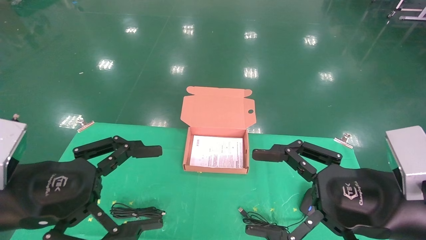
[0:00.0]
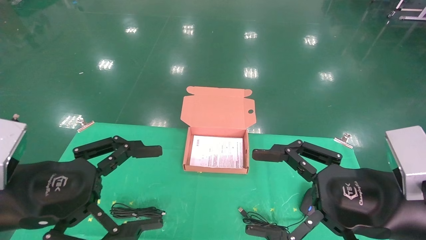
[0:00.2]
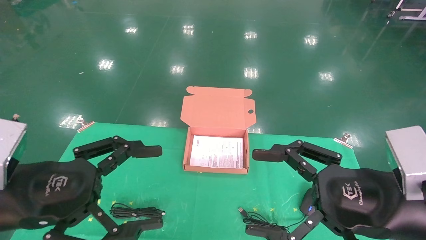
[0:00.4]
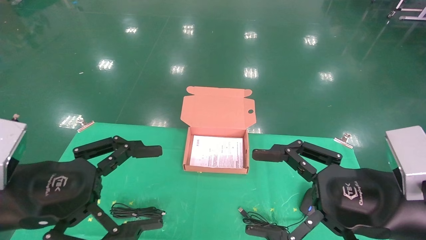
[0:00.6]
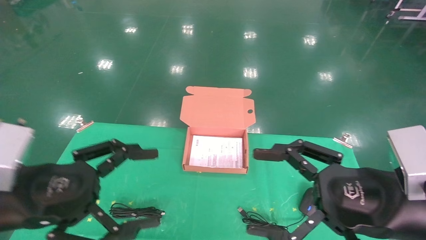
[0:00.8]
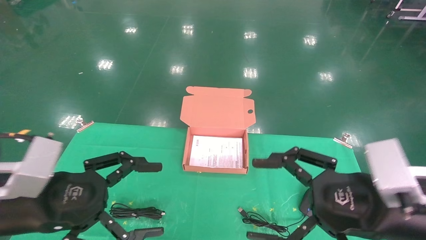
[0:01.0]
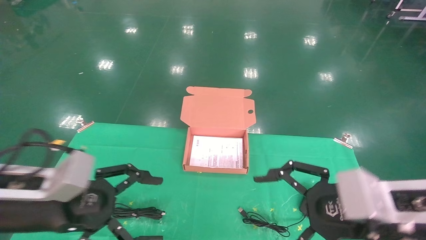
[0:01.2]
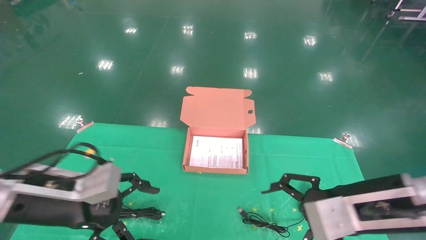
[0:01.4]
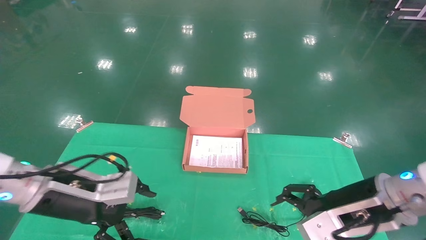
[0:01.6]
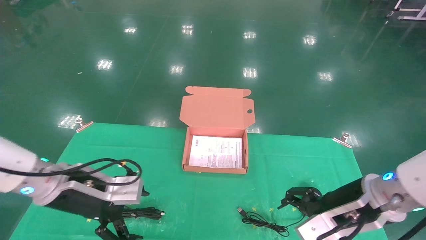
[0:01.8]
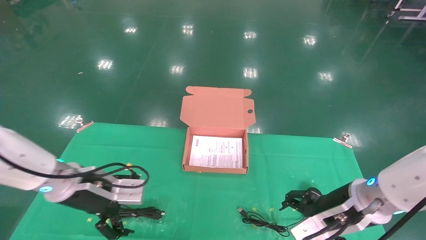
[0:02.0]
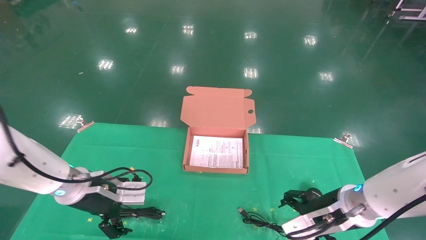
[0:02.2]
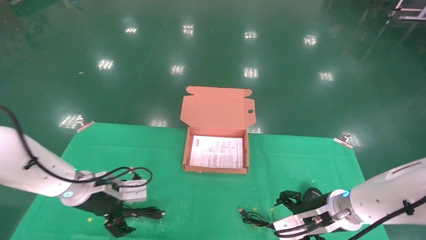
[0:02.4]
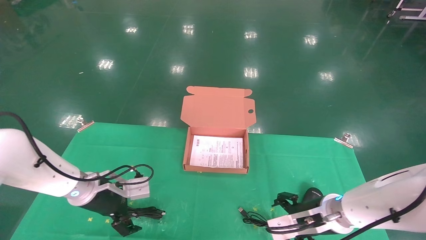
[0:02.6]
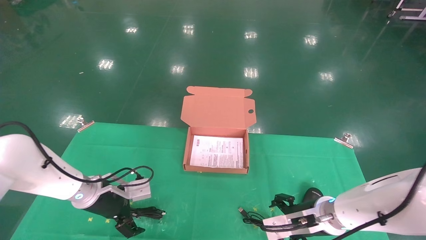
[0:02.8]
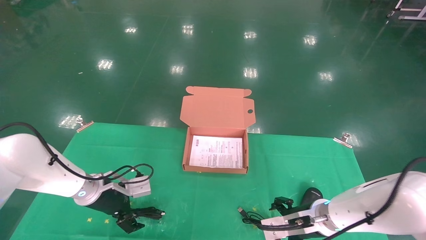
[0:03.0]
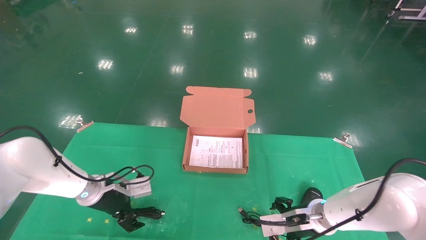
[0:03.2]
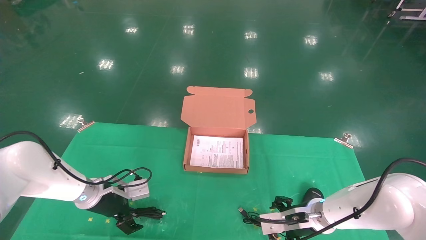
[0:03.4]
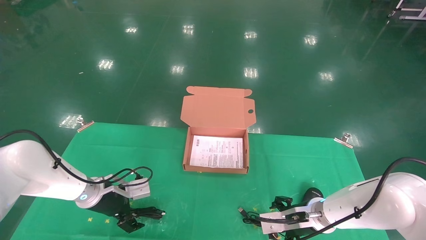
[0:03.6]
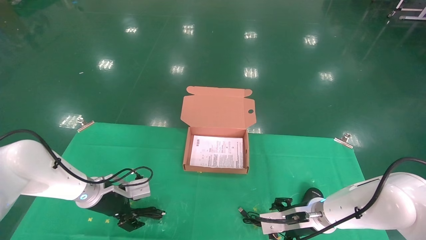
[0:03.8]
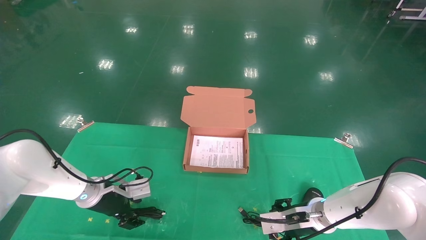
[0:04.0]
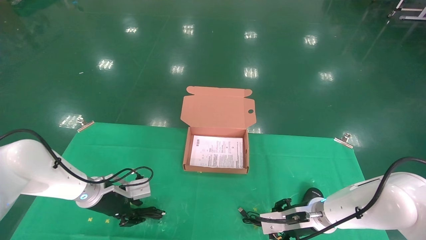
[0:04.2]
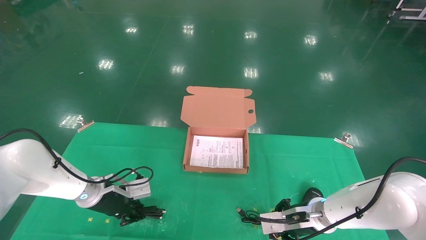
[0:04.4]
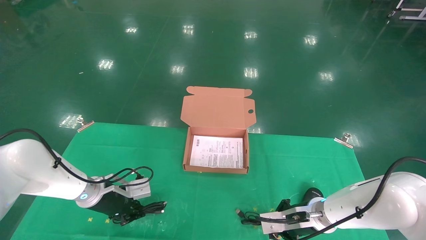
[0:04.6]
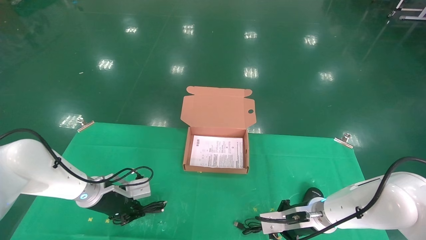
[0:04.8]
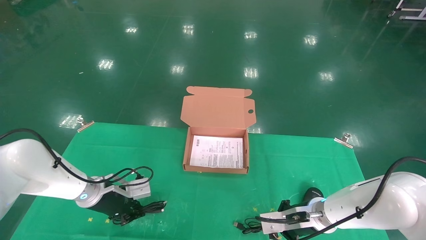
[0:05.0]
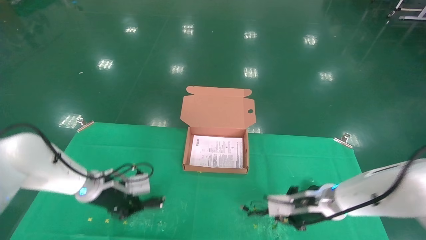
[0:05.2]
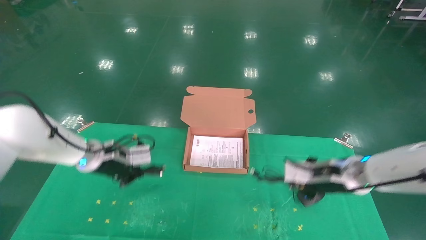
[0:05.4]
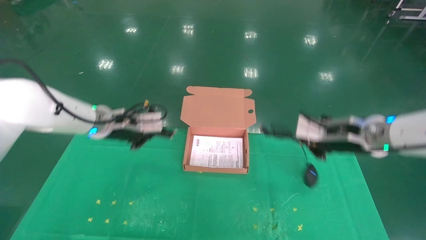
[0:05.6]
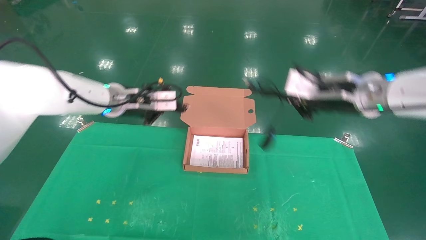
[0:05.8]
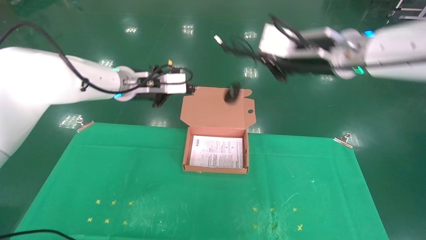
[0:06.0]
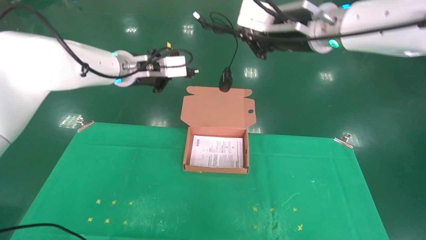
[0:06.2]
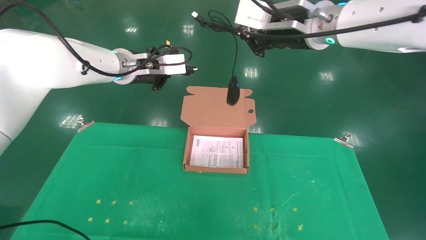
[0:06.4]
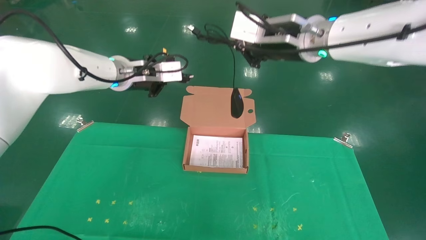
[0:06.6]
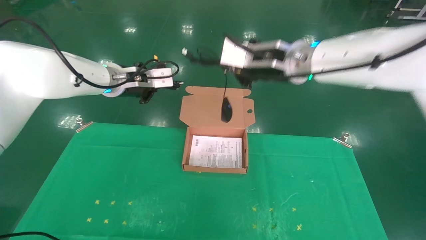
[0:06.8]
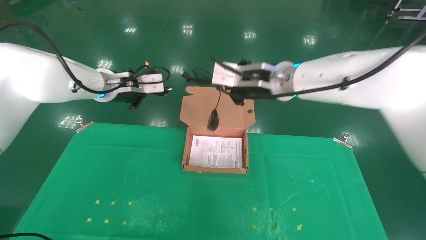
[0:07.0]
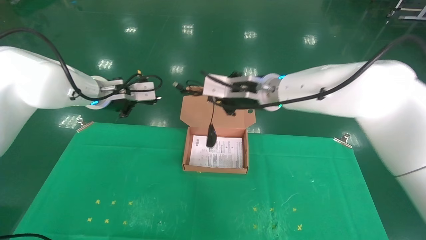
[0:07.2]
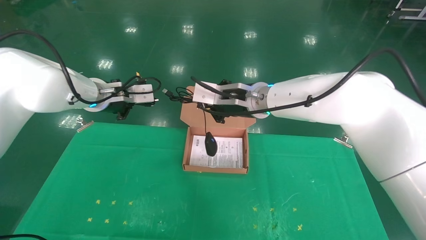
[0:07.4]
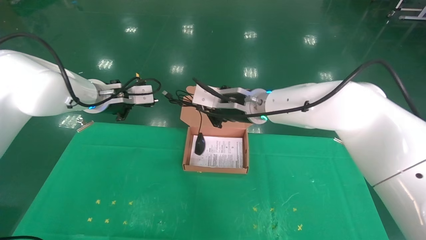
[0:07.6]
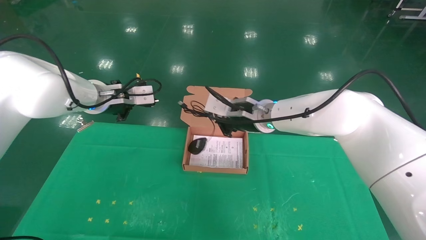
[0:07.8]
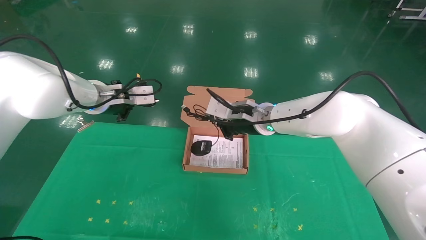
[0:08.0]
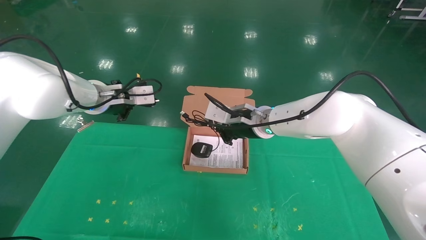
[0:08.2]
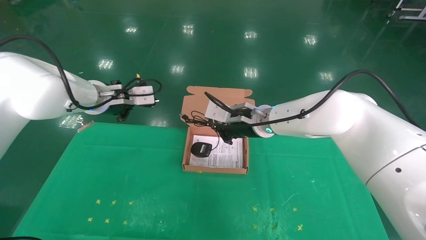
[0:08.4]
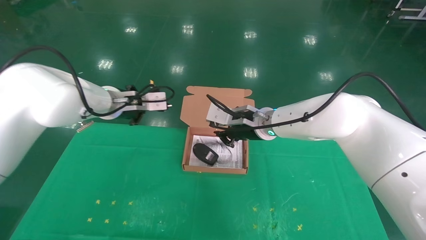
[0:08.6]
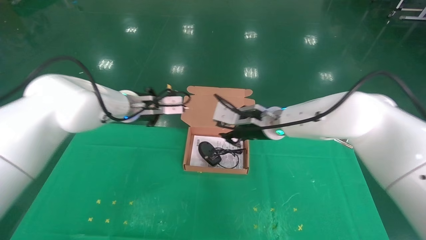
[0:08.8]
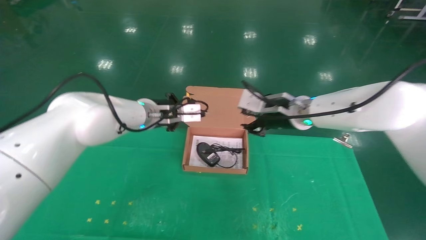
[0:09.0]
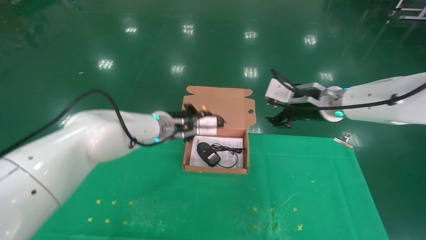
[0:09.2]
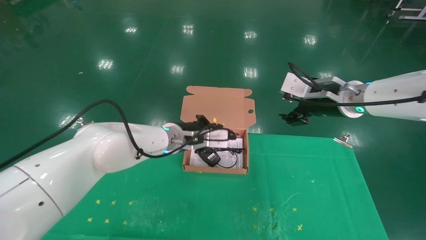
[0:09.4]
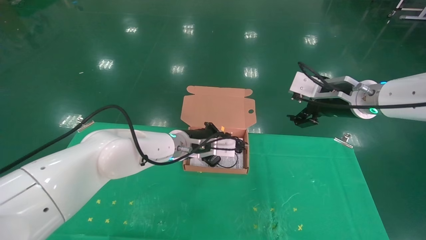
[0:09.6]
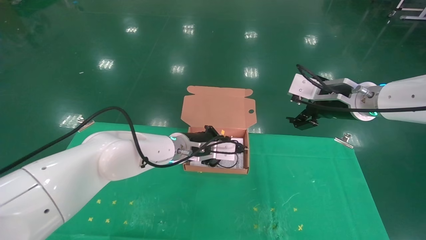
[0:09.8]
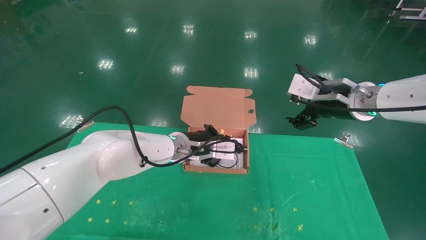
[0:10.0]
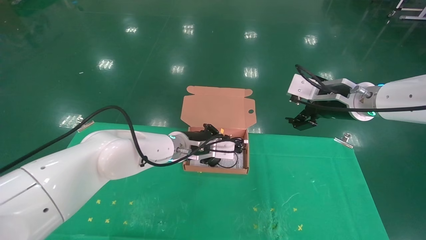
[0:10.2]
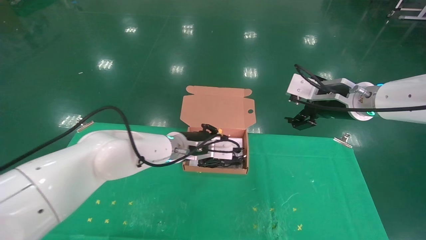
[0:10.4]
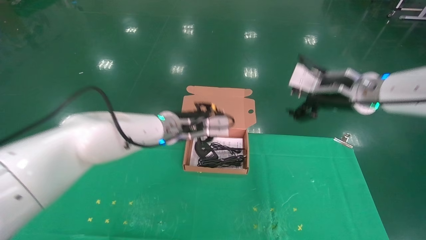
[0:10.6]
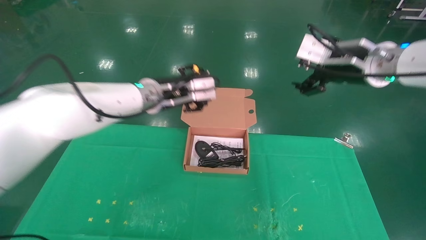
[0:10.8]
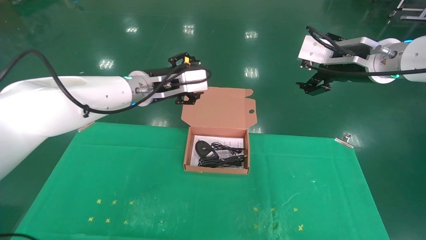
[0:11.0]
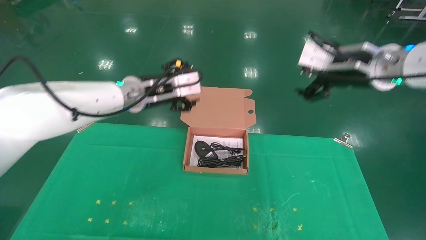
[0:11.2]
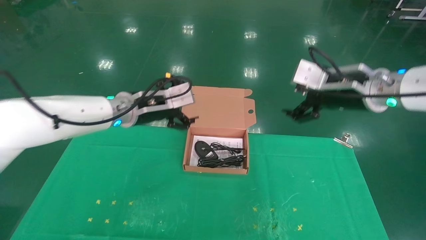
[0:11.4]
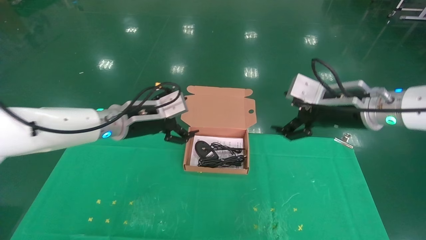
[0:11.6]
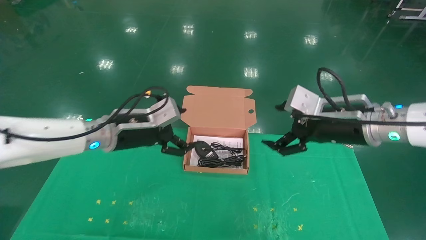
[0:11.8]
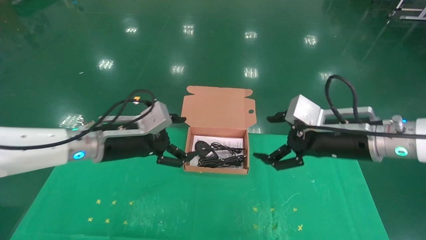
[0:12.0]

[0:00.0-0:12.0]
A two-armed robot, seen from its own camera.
Task of the whole recording: grasp data cable left put into box grasp mouse right put into box.
Step, 0:00.8 to 0:05.4: Grab and pick up both the mouse and power cord from the accessory packaging area at the same time.
Step, 0:05.6 to 0:10.8: Place the mouse and power cord into the box.
0:00.0 to 0:01.6: The right gripper heads forward, covering about 10 cm; the left gripper shifts about 10 cm forward and downward.
0:01.6 to 0:03.0: The right gripper shifts some 15 cm downward and forward. Meanwhile the left gripper goes about 15 cm forward and downward.
0:03.0 to 0:04.4: The left gripper closes, while the right gripper closes up.
0:04.4 to 0:06.0: The two grippers go roughly 30 cm upward. The right gripper closes its fingers.
0:06.0 to 0:07.6: The left gripper travels to the left by some 5 cm. The right gripper shifts about 15 cm to the left, downward and forward.
0:07.6 to 0:09.0: The left gripper shifts about 10 cm to the right and downward. Meanwhile the right gripper heads to the right, covering some 10 cm.
0:09.0 to 0:10.4: The grippers both shift to the right by some 5 cm. The right gripper opens up.
0:10.4 to 0:12.0: The left gripper moves to the left and backward, approximately 15 cm, and opens; the right gripper moves backward and downward, about 10 cm.

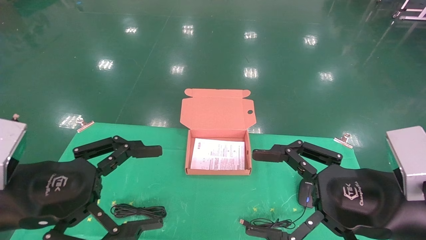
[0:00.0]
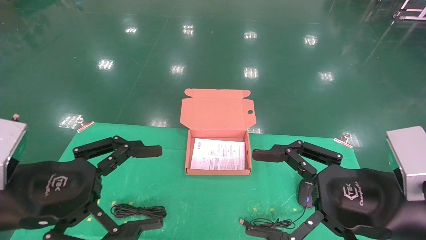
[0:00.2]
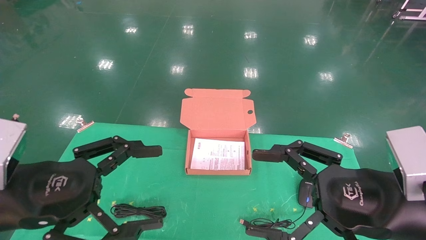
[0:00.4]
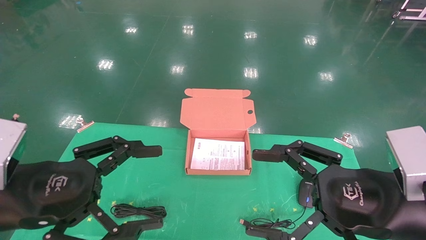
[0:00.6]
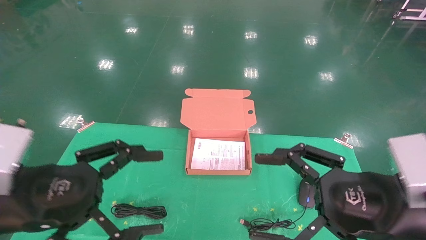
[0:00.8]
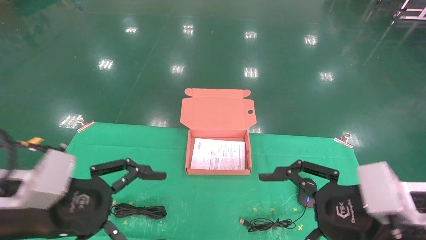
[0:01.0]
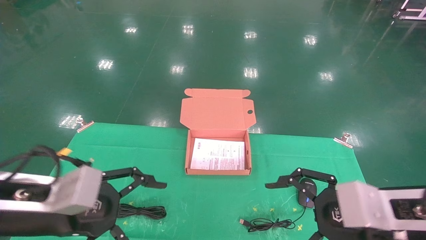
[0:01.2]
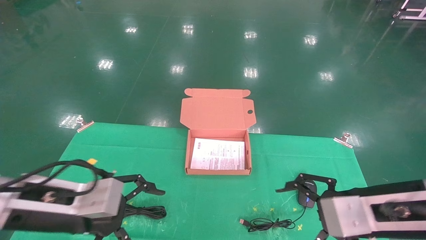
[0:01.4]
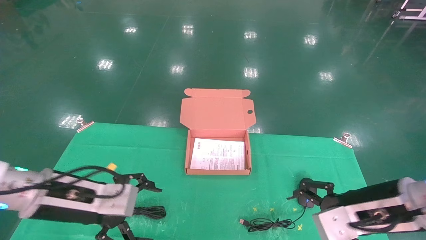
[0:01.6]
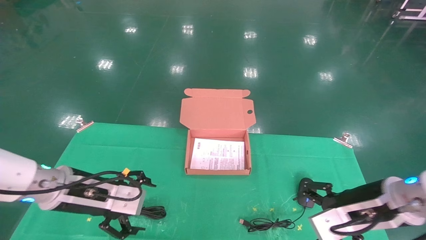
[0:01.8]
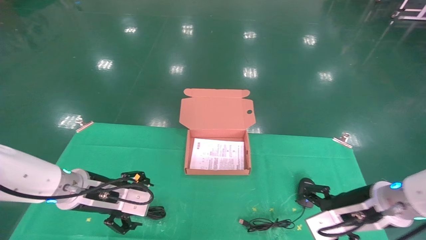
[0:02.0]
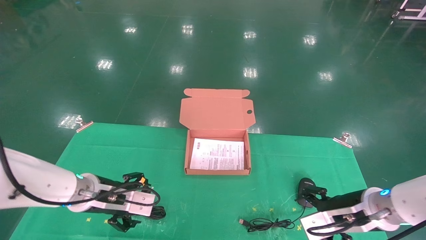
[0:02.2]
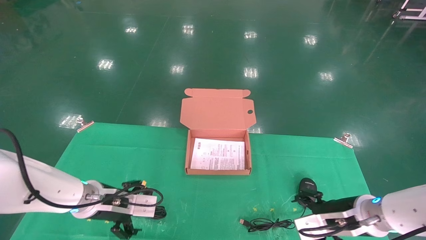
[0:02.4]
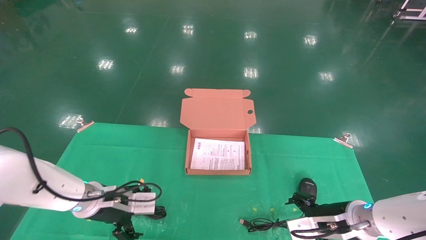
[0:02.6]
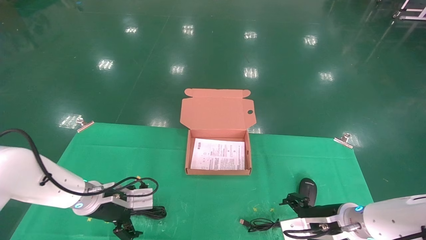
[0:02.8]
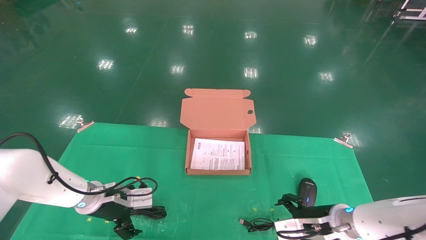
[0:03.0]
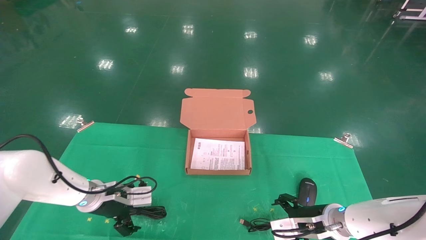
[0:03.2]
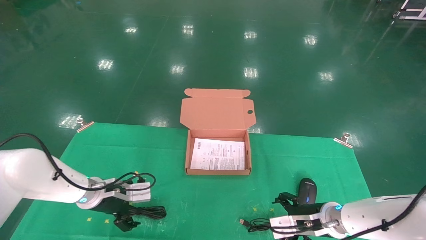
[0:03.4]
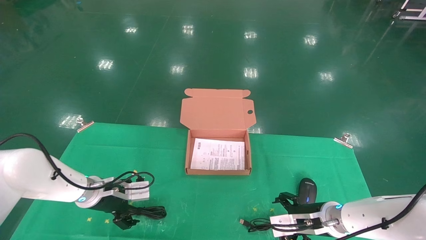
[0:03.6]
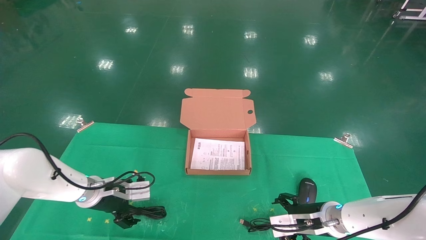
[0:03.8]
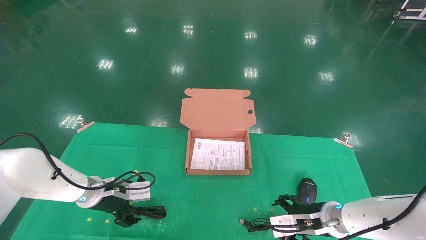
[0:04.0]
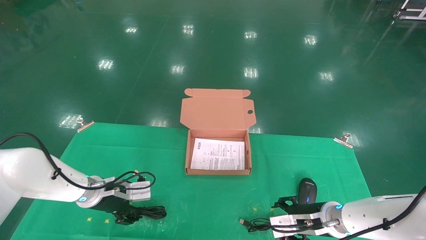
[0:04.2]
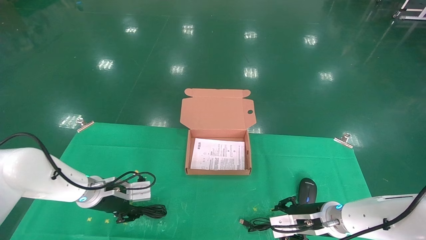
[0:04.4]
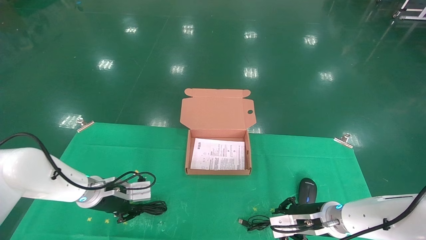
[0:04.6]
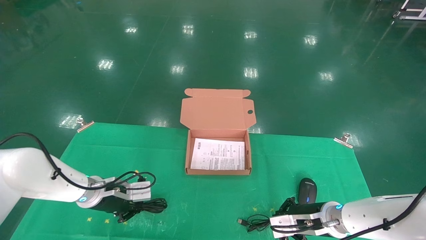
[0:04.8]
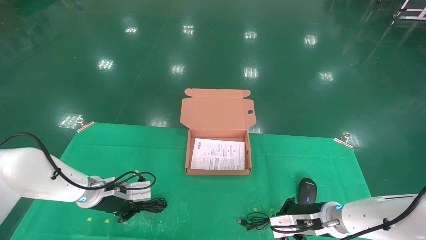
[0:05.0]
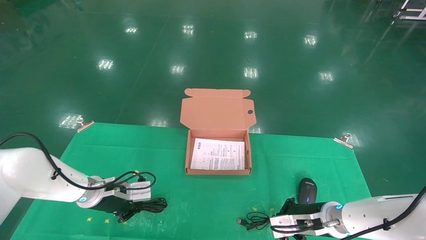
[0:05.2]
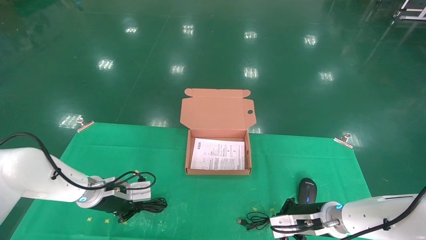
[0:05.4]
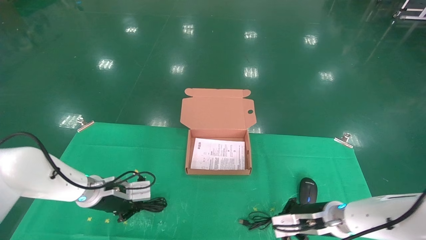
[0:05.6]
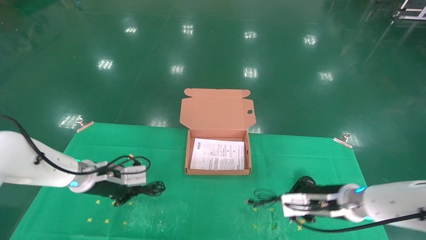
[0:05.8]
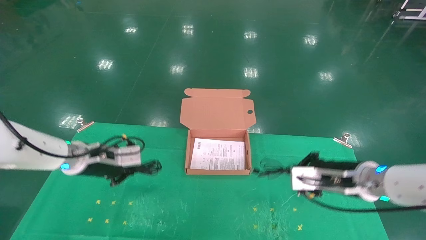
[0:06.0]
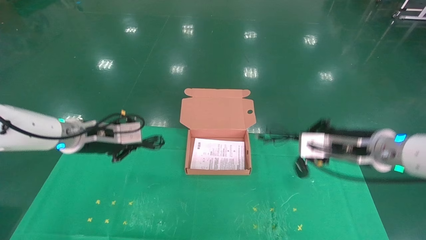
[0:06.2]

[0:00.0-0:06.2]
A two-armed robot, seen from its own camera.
Task of the whole recording: grasp data cable left put into box grasp mouse right put into box.
Step, 0:00.8 to 0:06.2: Grab and pick up both the mouse and power cord from the accessory packaging area at the same time.
0:00.0 to 0:01.6: The grippers both shift forward and downward by about 10 cm.
0:01.6 to 0:03.2: The right gripper moves downward and forward, some 15 cm; the left gripper travels forward and downward by roughly 15 cm.
0:03.2 to 0:04.6: The right gripper closes, while the left gripper closes.
0:04.6 to 0:06.2: The two grippers go about 15 cm upward. The right gripper closes its fingers.
